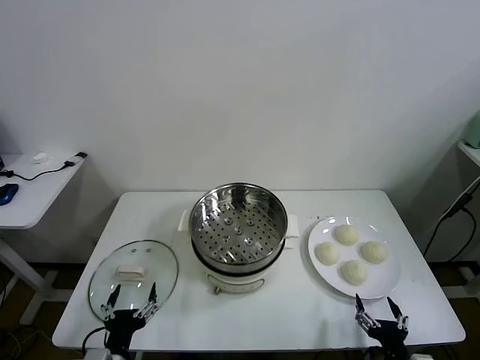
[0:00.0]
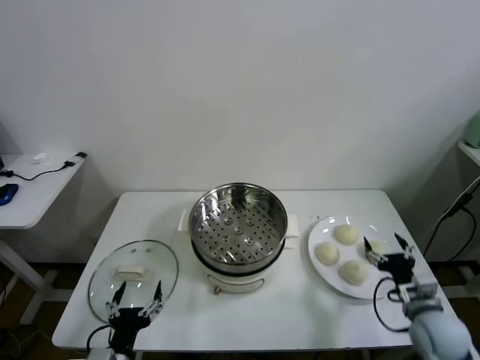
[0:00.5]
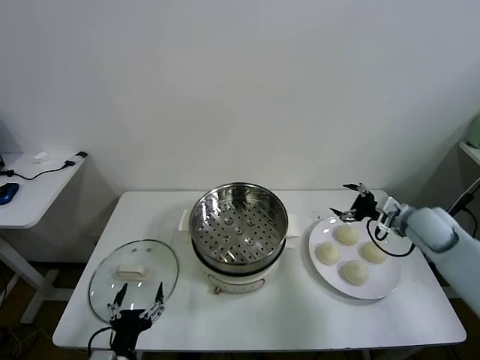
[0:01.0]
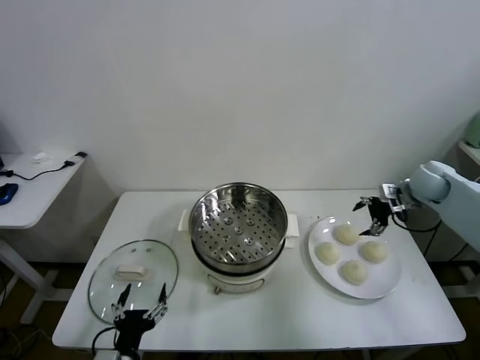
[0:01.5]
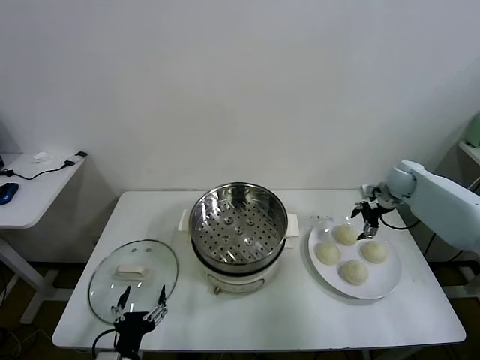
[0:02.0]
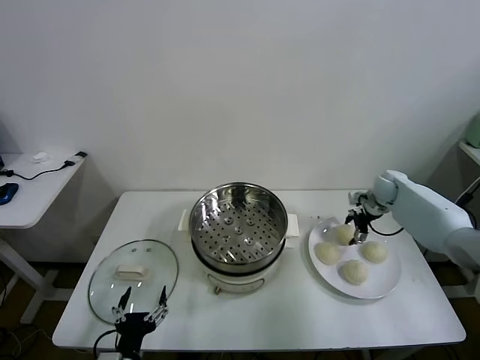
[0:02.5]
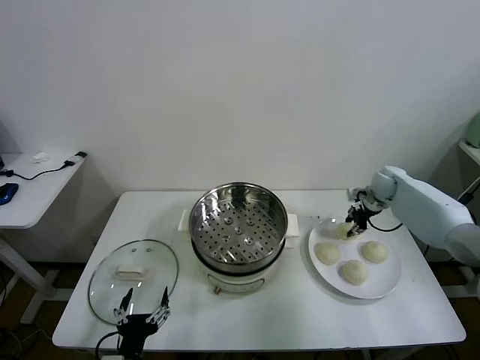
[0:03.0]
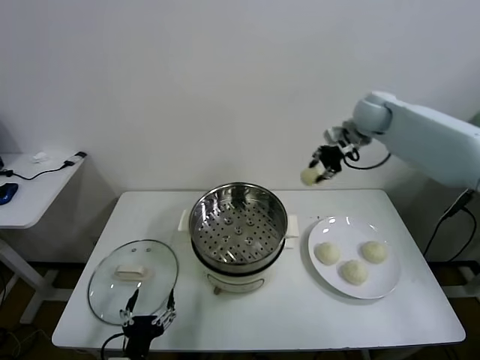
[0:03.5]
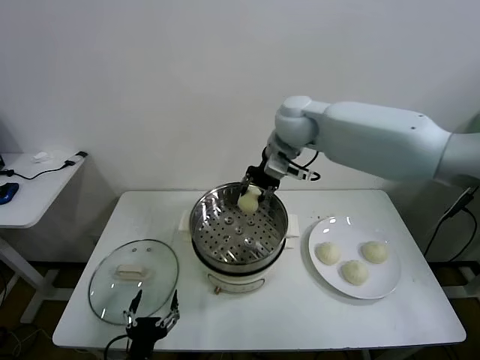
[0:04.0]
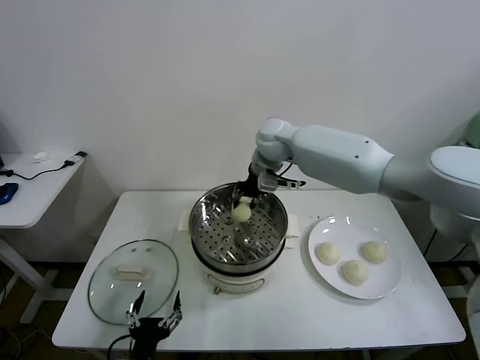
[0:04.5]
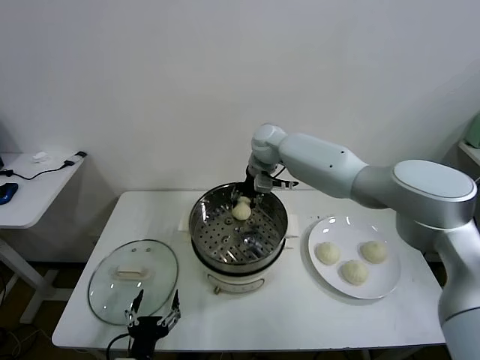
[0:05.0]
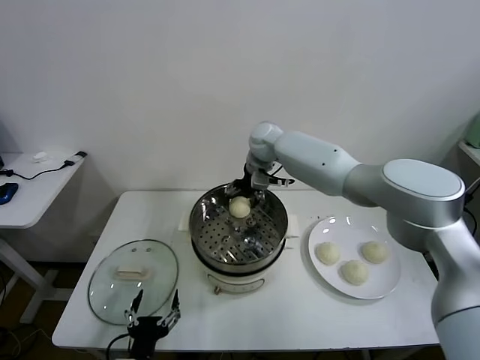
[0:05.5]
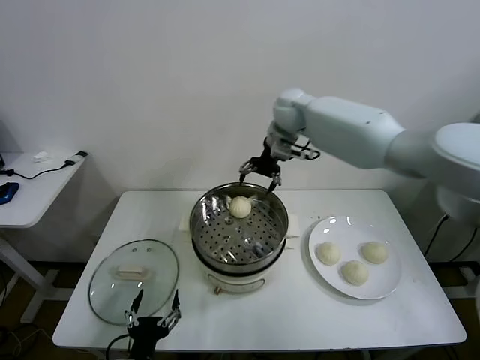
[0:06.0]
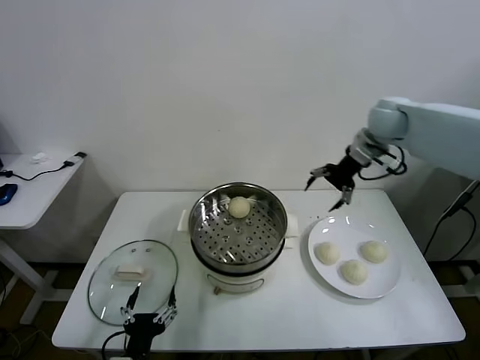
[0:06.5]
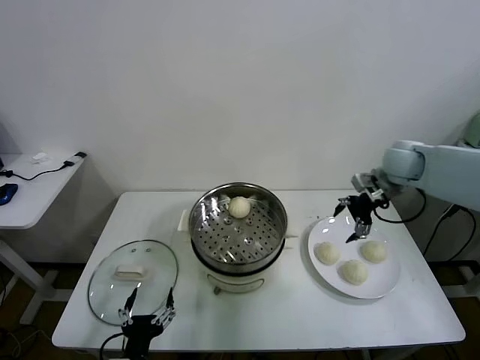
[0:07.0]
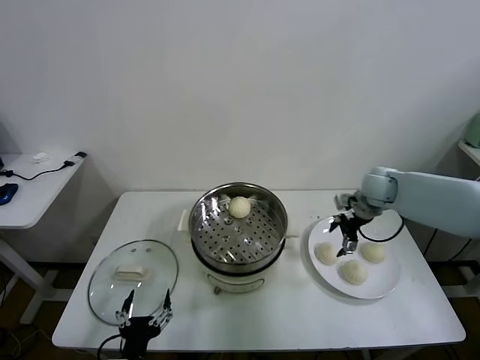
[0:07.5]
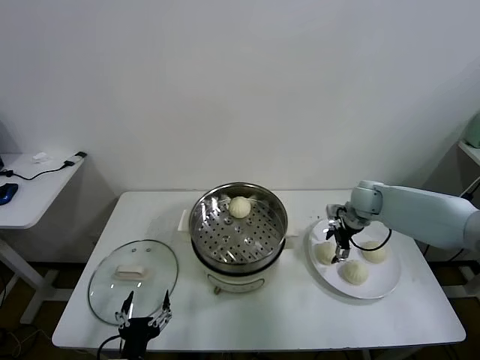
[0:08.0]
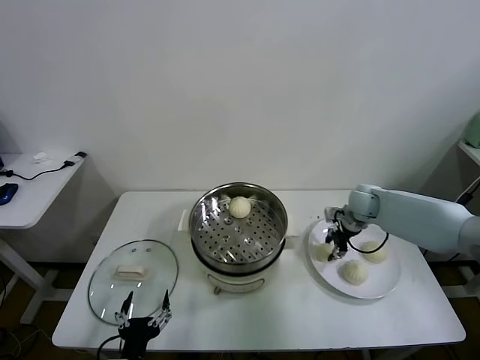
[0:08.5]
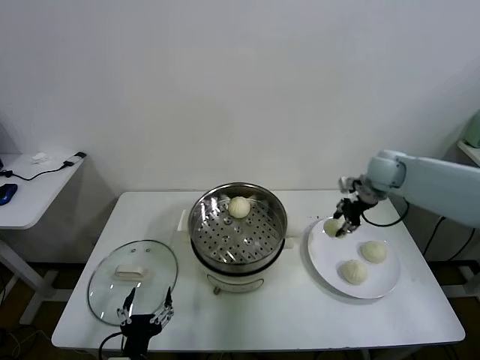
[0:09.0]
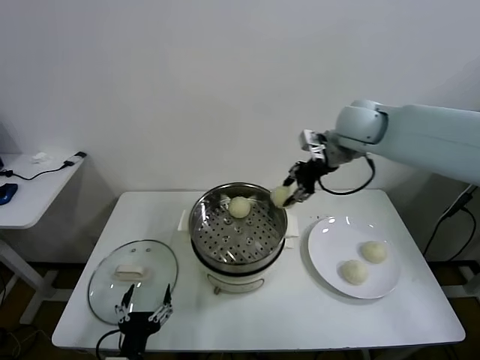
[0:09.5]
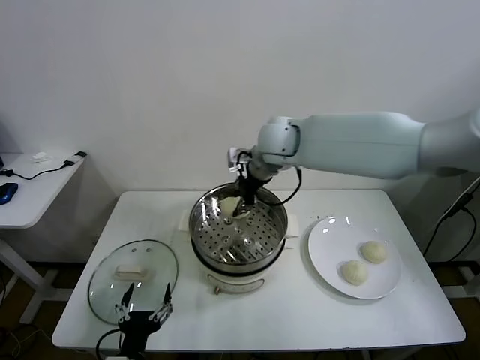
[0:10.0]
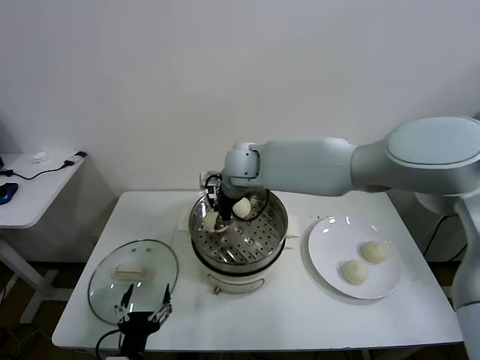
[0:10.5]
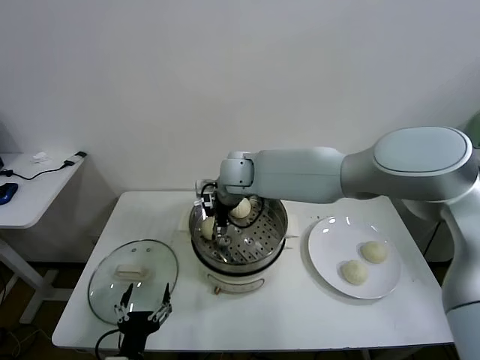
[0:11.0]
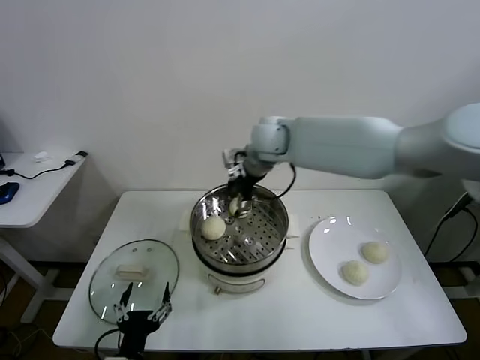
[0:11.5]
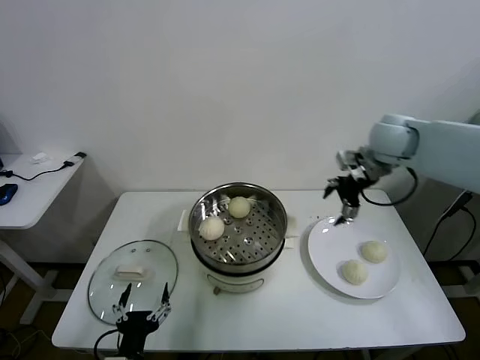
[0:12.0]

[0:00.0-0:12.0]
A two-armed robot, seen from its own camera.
Task of the whole recording: take steamed baozi put them in steamer.
Step, 0:00.0 to 0:02.5: Grasp the baozi in the plate with right gripper.
Step, 0:03.0 to 0:05.0: Place the baozi on the steamer with right gripper.
Step, 0:06.0 to 0:08.0: Grasp the baozi in the plate with right gripper.
Step, 0:08.5 to 0:11.0: Place the baozi on the steamer with right gripper.
0:02.0 to 0:04.0: The right gripper travels to the left and upward by about 40 cm, and closes.
0:04.0 to 0:06.0: The right gripper moves forward and to the right, about 10 cm, moves some 10 cm downward and comes back, and opens its fingers.
0:06.0 to 0:08.0: The right gripper shifts some 30 cm downward and to the right.
0:08.0 to 0:10.0: The right gripper moves to the left and upward, some 35 cm, and closes its fingers.
0:10.0 to 0:12.0: The right gripper shifts some 25 cm to the right, and opens up.

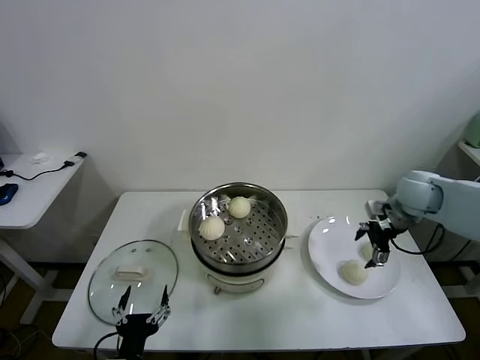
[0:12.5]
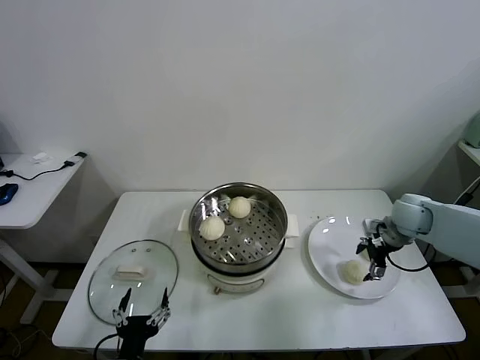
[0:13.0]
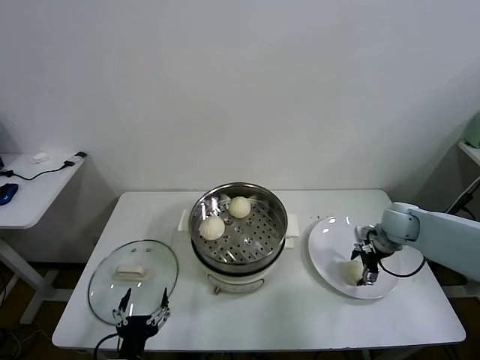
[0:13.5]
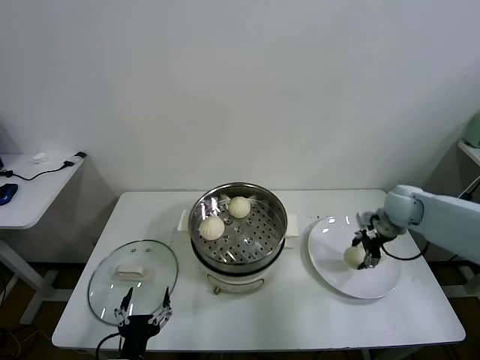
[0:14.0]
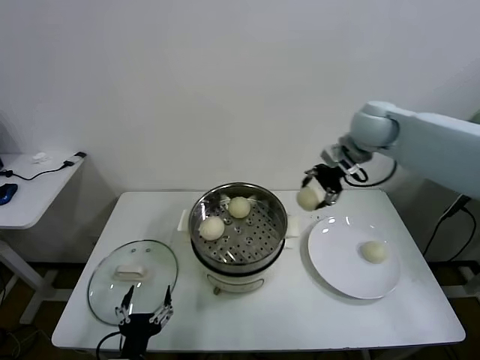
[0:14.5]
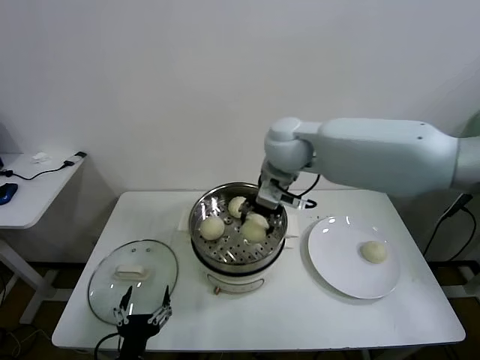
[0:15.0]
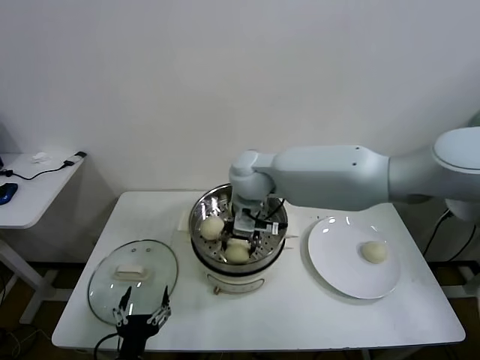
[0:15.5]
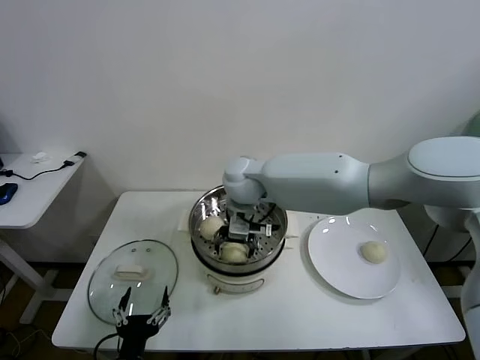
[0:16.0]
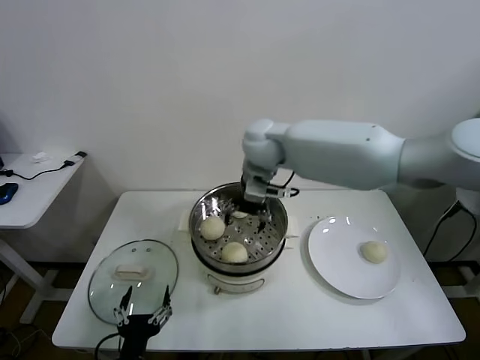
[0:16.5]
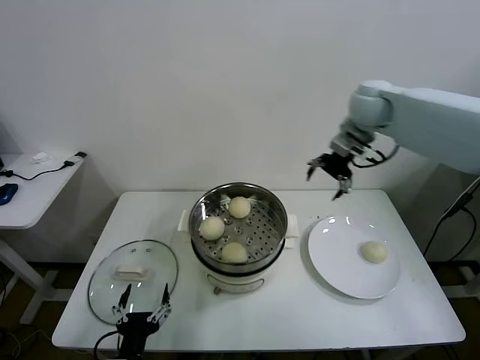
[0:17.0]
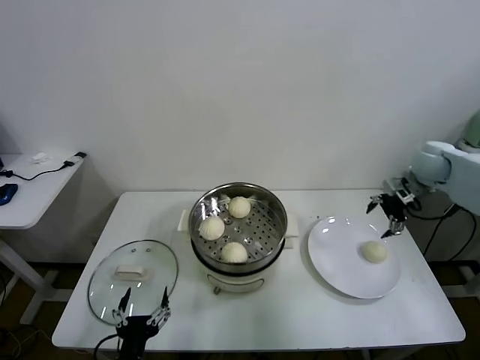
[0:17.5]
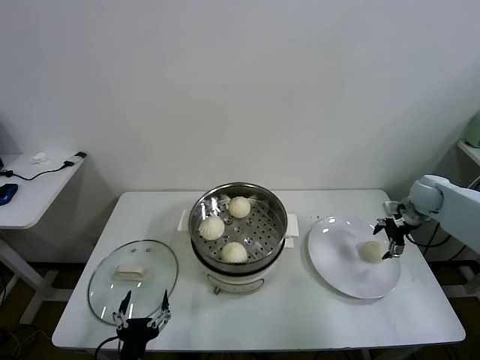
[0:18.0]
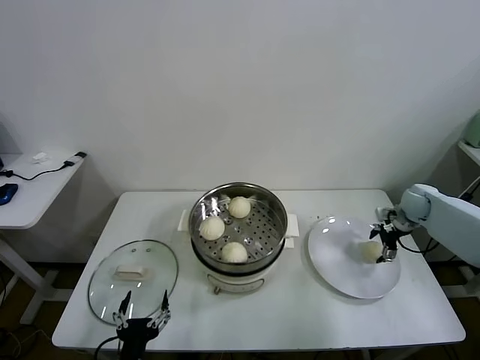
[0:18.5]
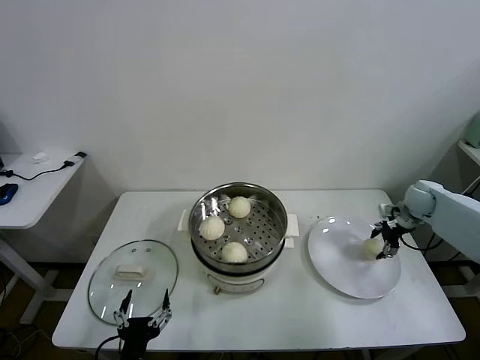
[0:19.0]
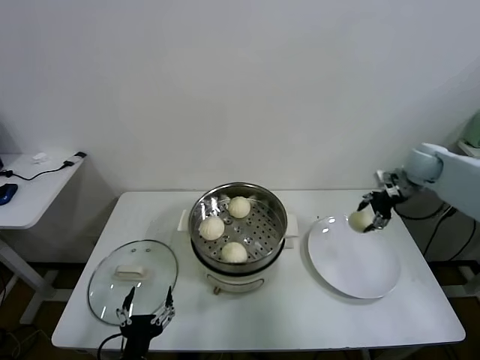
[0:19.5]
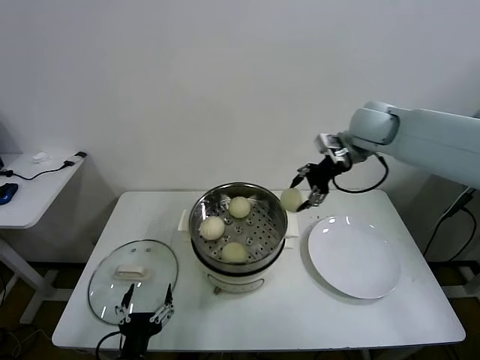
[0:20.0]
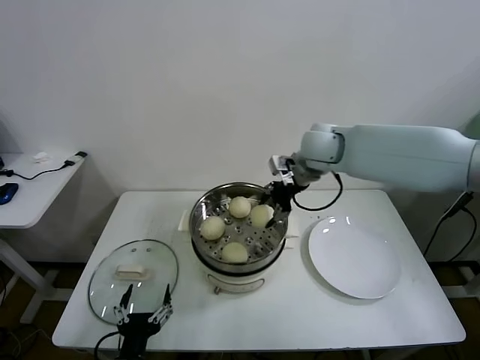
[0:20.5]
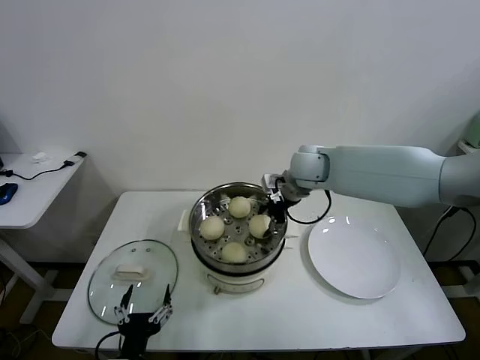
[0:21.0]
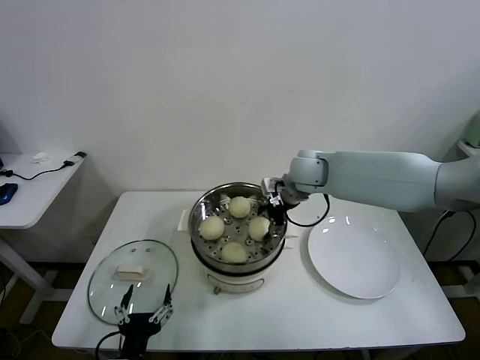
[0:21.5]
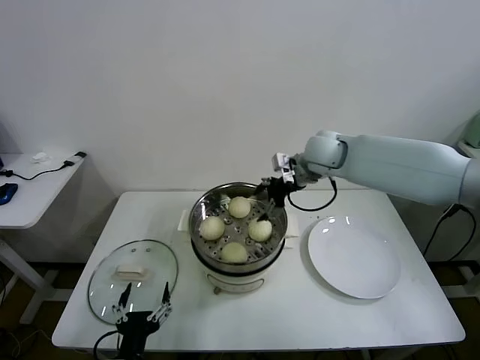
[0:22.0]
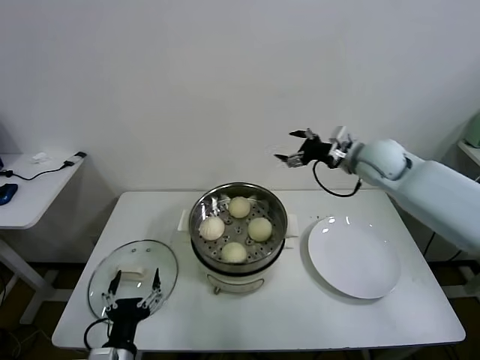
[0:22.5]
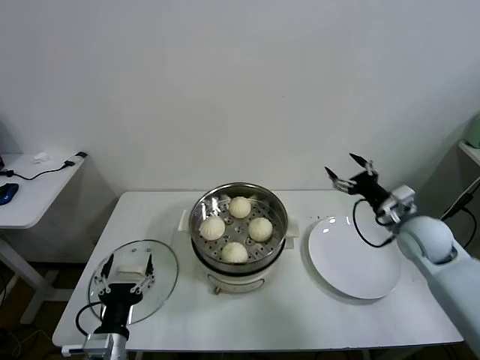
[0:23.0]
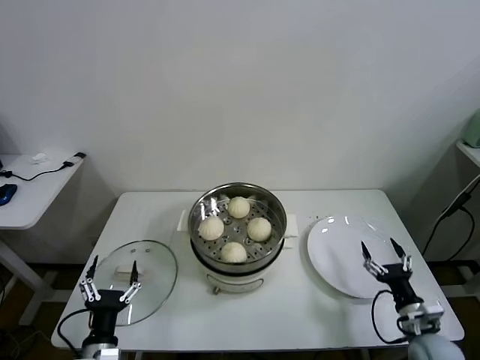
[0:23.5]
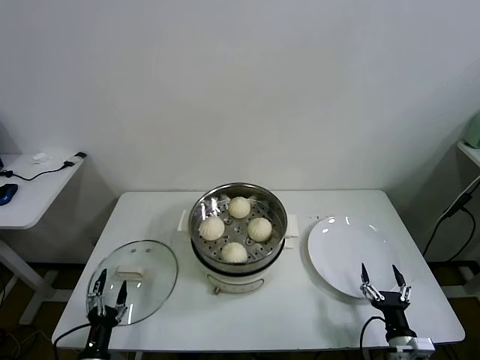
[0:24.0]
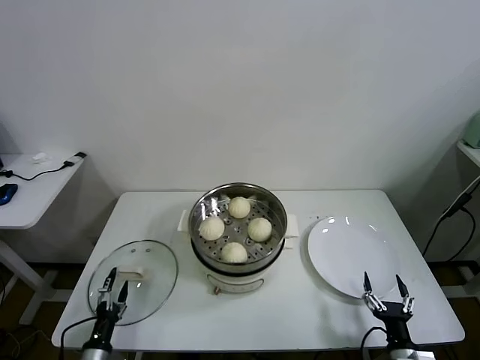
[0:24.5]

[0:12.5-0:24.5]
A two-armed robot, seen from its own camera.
Task of the whole recording: take steamed baozi put them in steamer.
Step, 0:14.0 to 0:16.0: Place the baozi on the steamer with right gripper.
Step, 0:16.5 to 0:18.5: Grasp the baozi in the plate with right gripper.
Step, 0:19.0 to 0:21.5: Place the baozi on the steamer with right gripper.
0:12.5 to 0:14.5: The right gripper travels upward and to the left by approximately 20 cm, and closes.
0:14.5 to 0:16.5: The right gripper is displaced to the left by roughly 20 cm, and opens.
0:16.5 to 0:18.5: The right gripper moves to the right and downward, approximately 50 cm.
0:18.5 to 0:20.5: The right gripper moves to the left and upward, some 35 cm, and closes its fingers.
0:20.5 to 0:22.5: The right gripper goes roughly 15 cm to the right, and opens.
0:22.5 to 0:24.5: The left gripper goes about 20 cm downward and to the left. The right gripper shifts about 50 cm backward and downward.

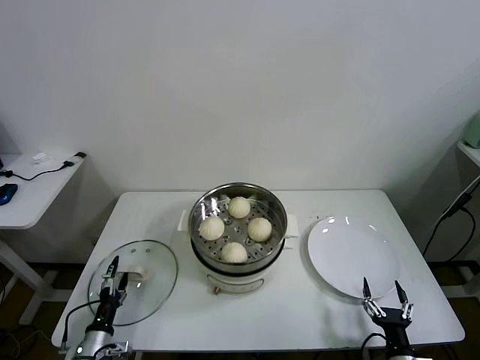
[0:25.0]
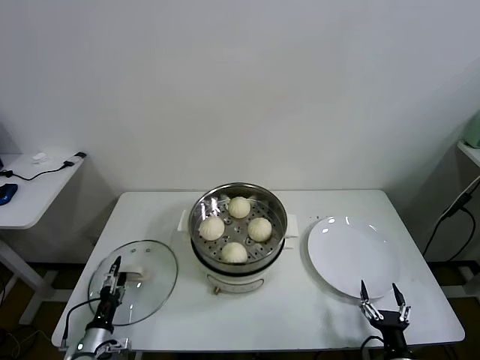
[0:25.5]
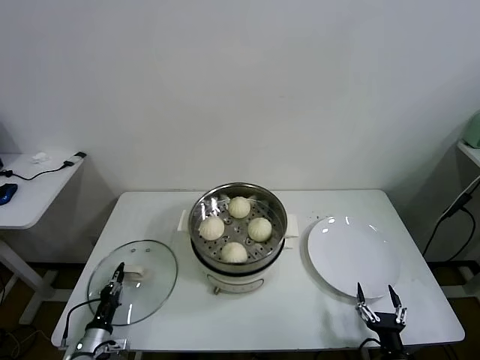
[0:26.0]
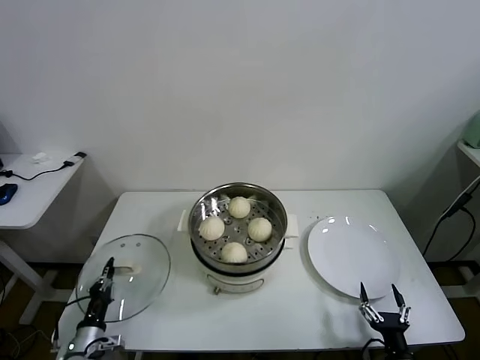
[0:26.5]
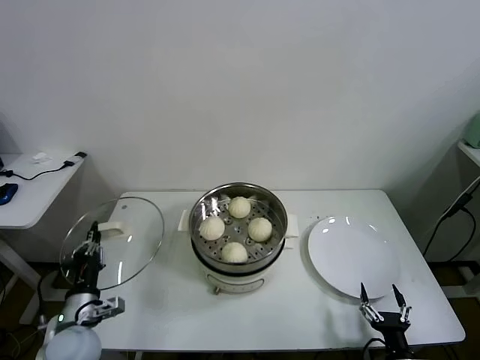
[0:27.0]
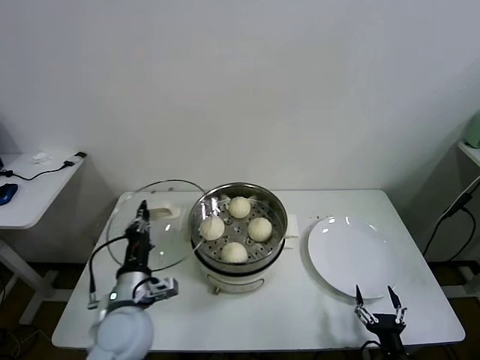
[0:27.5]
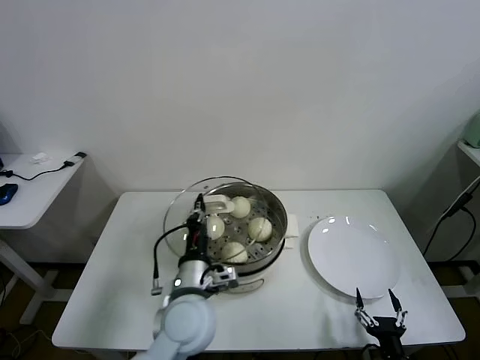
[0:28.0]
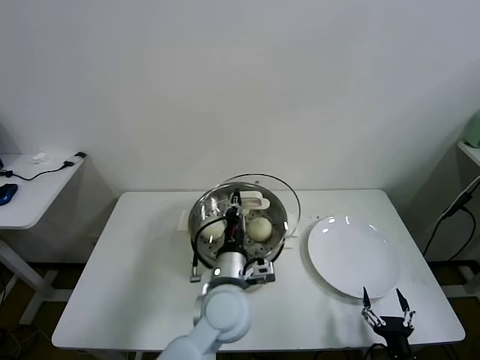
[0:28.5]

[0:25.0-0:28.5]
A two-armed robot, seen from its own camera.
Task of the whole recording: take steamed baozi put them in steamer.
0:25.0 to 0:27.0: The left gripper is displaced upward by roughly 15 cm, and closes its fingers.
0:27.0 to 0:28.5: The left gripper is displaced to the right by approximately 30 cm.
